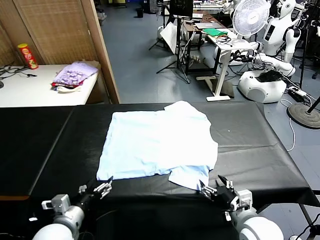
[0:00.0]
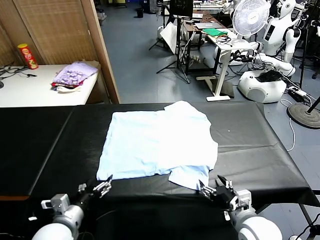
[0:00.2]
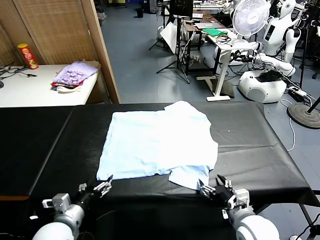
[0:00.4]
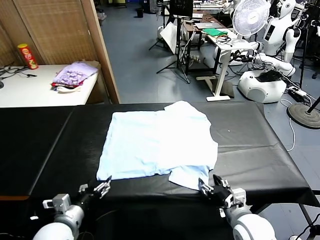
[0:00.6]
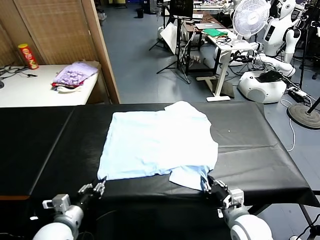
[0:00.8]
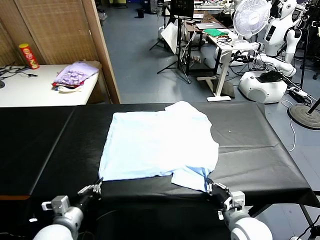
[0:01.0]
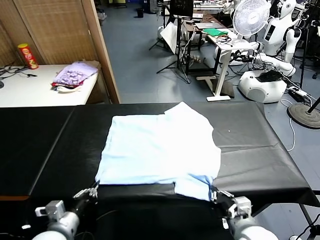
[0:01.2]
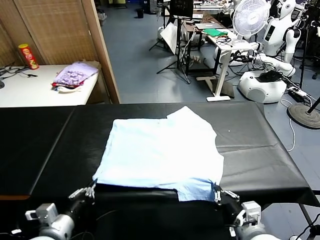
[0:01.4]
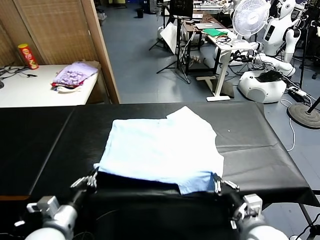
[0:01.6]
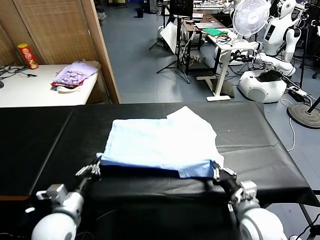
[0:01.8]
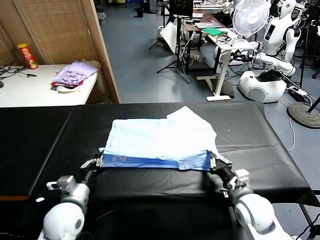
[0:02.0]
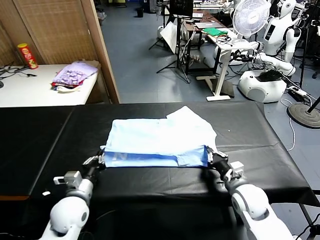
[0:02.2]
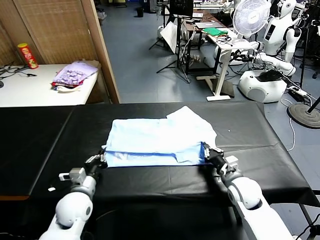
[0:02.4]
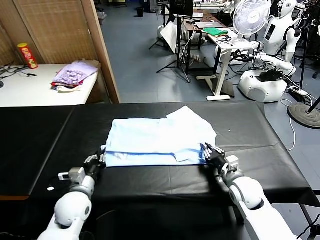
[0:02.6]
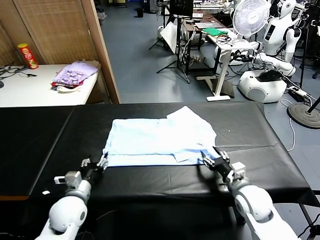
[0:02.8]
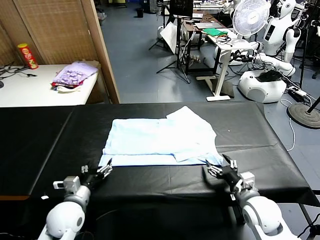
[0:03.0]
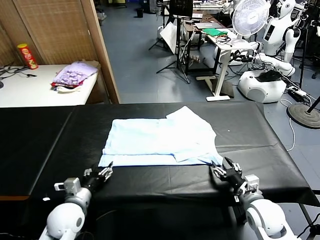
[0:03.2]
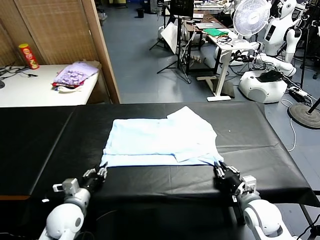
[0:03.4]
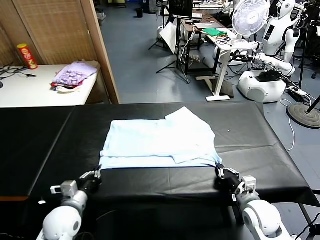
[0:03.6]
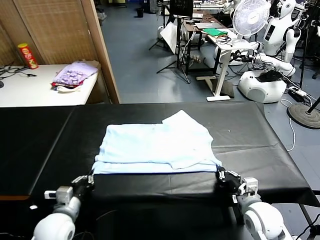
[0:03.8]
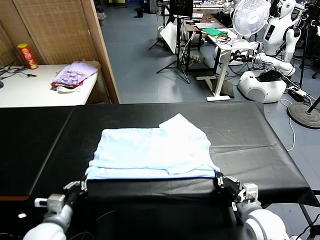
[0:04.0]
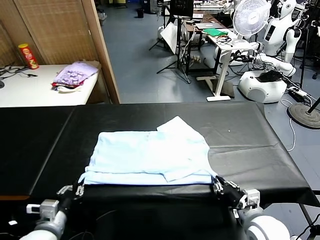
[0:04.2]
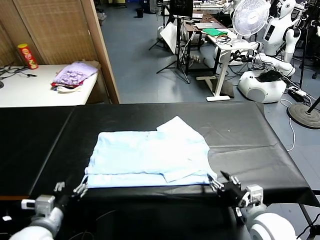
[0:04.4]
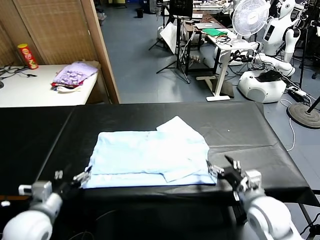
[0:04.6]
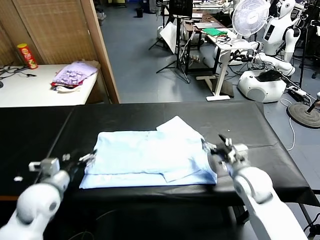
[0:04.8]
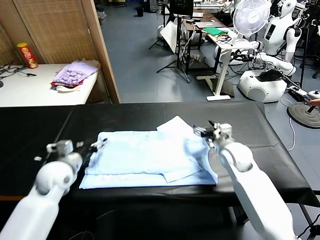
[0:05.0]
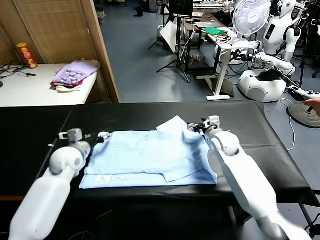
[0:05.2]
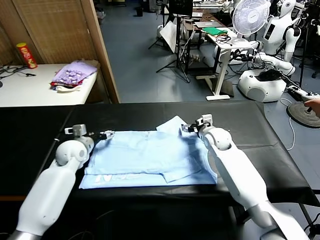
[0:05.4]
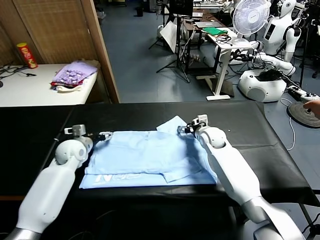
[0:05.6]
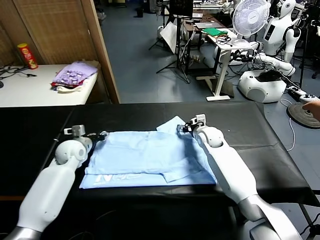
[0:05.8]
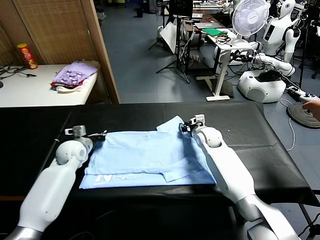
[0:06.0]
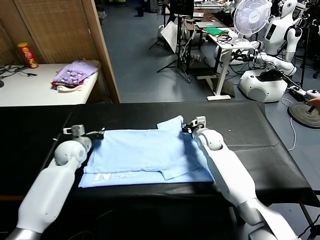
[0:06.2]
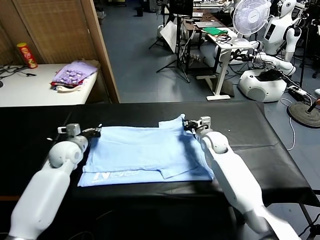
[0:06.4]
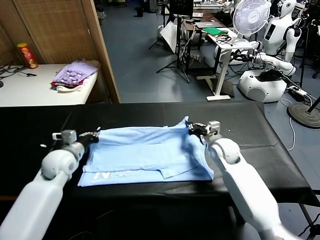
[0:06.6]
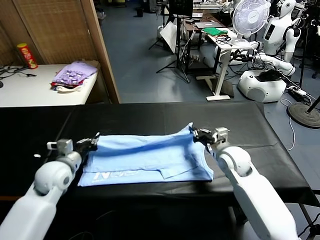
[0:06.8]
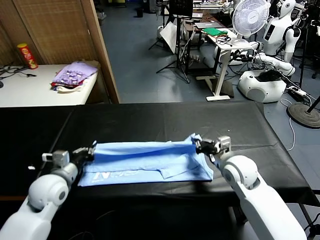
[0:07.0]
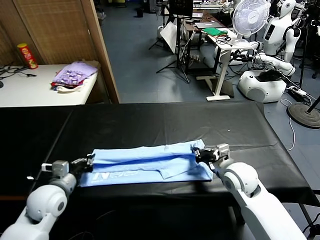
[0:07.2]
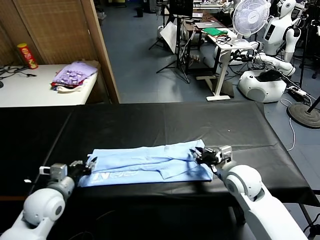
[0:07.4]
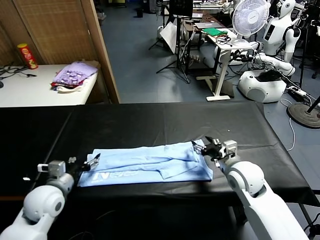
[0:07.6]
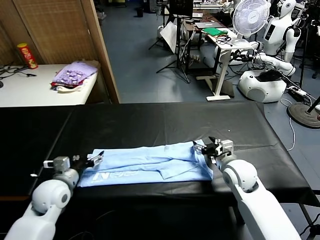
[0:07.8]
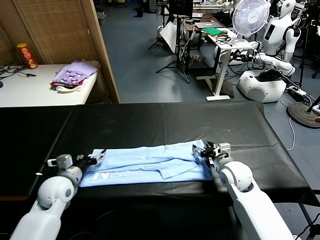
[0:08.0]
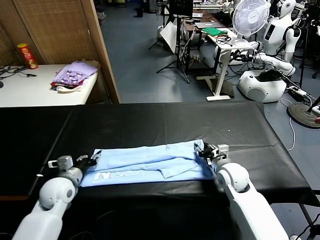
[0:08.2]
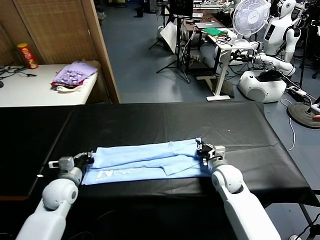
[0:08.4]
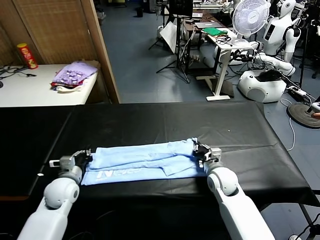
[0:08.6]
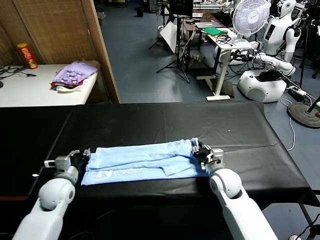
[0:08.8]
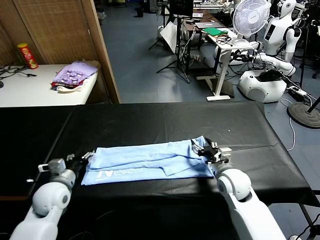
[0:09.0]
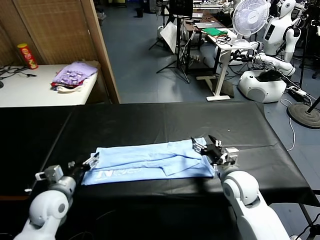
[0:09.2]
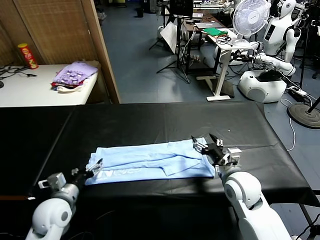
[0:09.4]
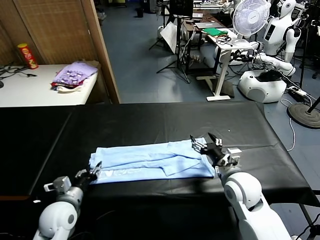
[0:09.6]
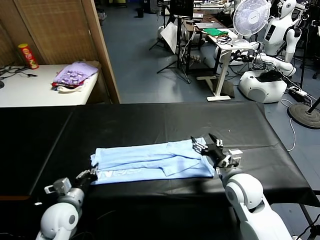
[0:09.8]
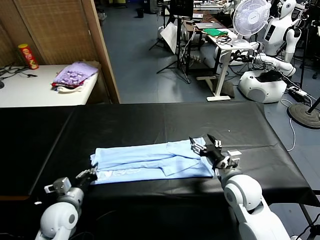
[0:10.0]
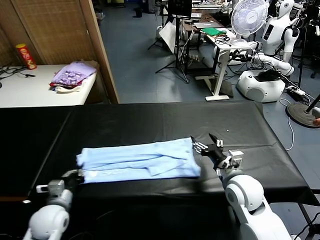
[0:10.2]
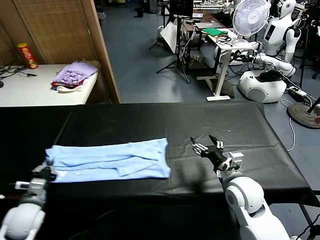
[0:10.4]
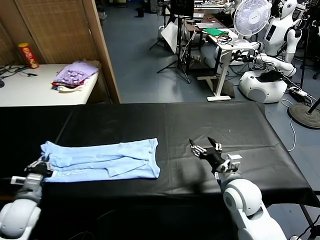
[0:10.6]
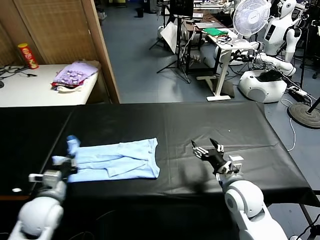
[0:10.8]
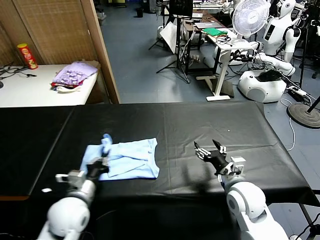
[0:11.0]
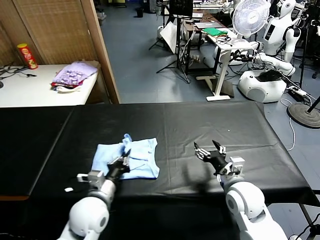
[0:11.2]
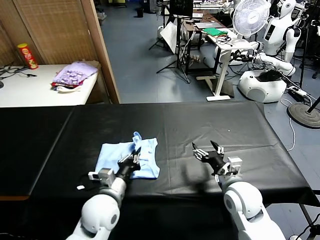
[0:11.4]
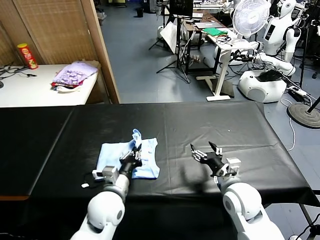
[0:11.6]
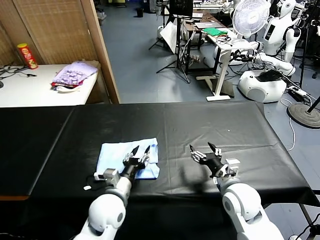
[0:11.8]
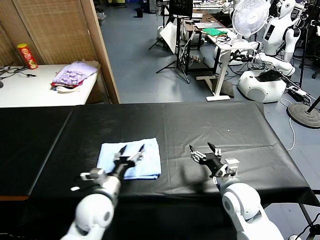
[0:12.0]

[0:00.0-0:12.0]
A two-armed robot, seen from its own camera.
Task of the whole recording: fold and organize the clothes.
Step, 0:00.0 to 0:00.8: use both grippers simultaneously to clamp the lower edge of the clothing fabric.
Step, 0:01.0 to 0:02.6: use both grippers to drag the lower edge of the fabric forward and fold it over the upper edge.
Step, 0:02.8 to 0:04.2: Drag the clothes downward with both gripper.
Step, 0:04.4 to 0:05.8: use both grippers simultaneously to clamp the upper edge of the clothing fabric.
Step, 0:06.2 to 0:07.4: use both grippers to drag the upper edge of the fabric backward and fold it over the lower edge.
Step, 0:07.6 to 0:09.8: use the left gripper to clamp the left edge of the fabric.
Step, 0:10.0 to 0:11.6: use the left gripper to drag the left edge of the fabric to the left and folds it over the right edge.
0:01.6 to 0:03.0: The right gripper moves about 10 cm forward and comes back, and opens up, while the left gripper heads downward, covering some 5 cm, and opens.
0:03.0 to 0:04.4: The left gripper heads upward and backward, covering roughly 10 cm, and closes, then reopens. Meanwhile the right gripper is displaced upward by roughly 5 cm, and opens its fingers.
0:04.4 to 0:06.0: The two grippers go roughly 30 cm forward. The left gripper closes up. The right gripper closes.
0:06.0 to 0:07.6: Both grippers travel together backward, some 15 cm. The right gripper opens its fingers; the left gripper opens up.
0:07.6 to 0:09.0: The right gripper closes, then opens again; the left gripper closes, then reopens.
0:09.0 to 0:10.4: The left gripper moves to the left, about 10 cm, and closes.
0:10.4 to 0:12.0: The left gripper is displaced to the right by roughly 20 cm, and opens.

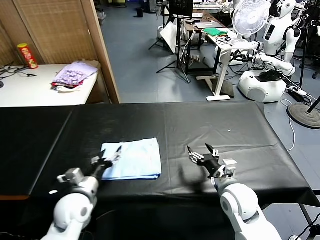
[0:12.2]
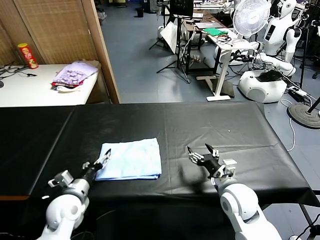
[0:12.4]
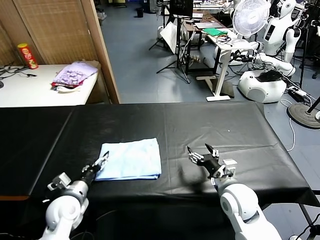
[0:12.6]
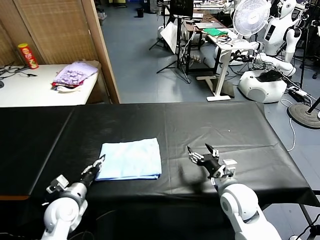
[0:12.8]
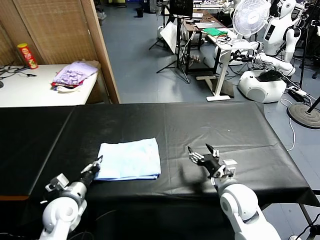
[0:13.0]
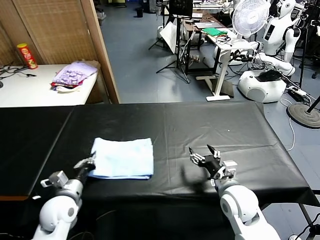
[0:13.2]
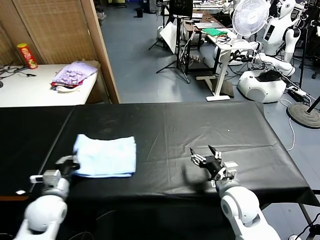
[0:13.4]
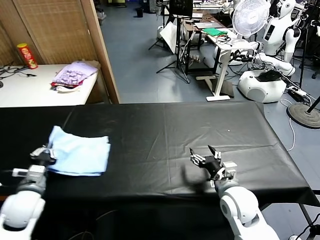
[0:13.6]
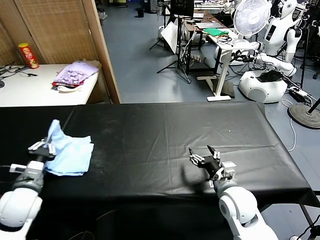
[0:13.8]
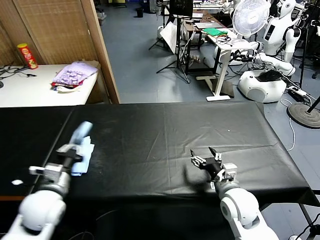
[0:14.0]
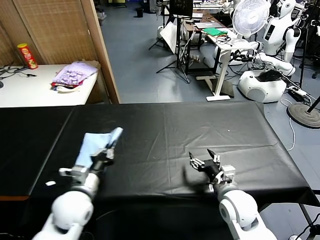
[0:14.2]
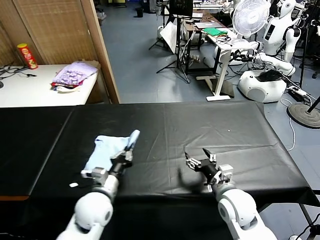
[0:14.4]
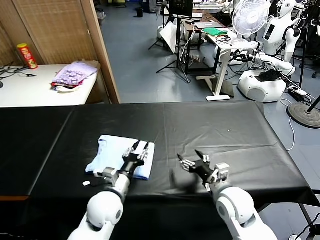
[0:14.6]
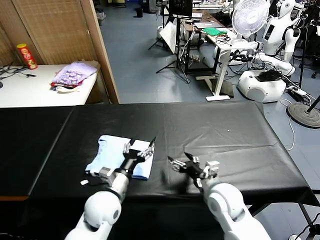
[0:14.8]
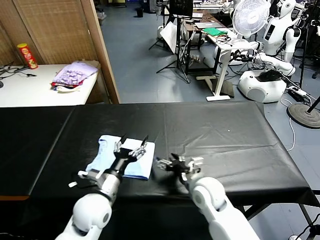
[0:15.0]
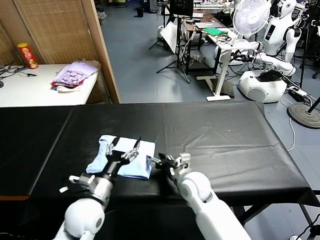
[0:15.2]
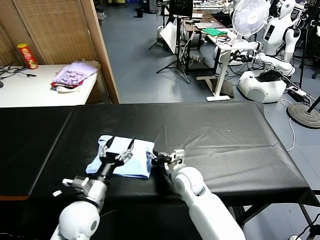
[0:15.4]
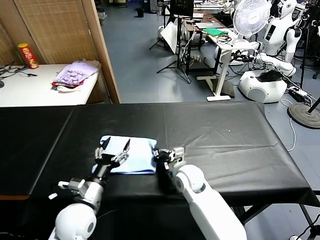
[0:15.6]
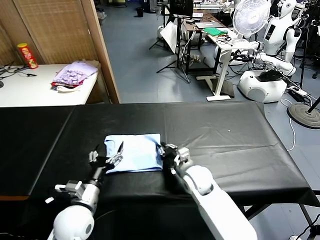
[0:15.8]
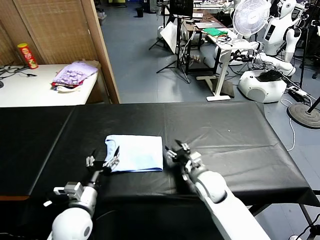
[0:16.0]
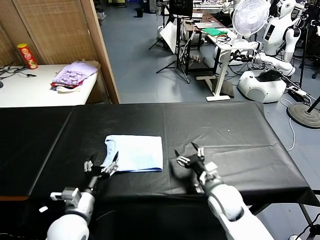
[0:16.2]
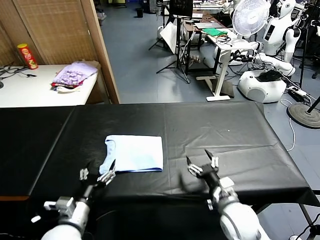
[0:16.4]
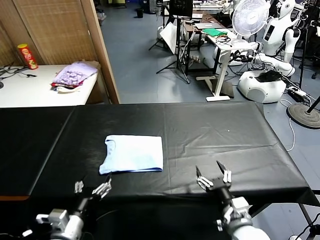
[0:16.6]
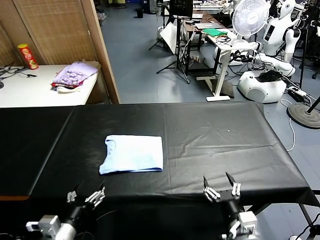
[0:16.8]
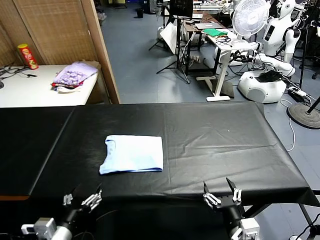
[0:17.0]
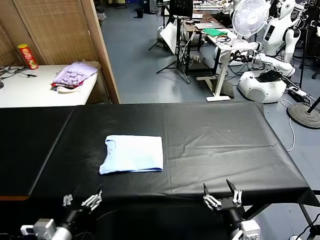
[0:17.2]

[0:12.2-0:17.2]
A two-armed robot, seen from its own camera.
Task of the whole recording: fold and organize the clothes.
Step, 0:12.2 to 0:14.4: Flip the folded clothes over with left gripper.
Step, 0:14.6 to 0:15.8: Drag the clothes to the center of the table.
0:12.2 to 0:13.8: The left gripper is displaced to the left and upward by some 15 cm, and closes its fingers.
0:13.8 to 0:15.6: The left gripper travels to the right by some 15 cm, and opens. The right gripper is displaced to the left and forward by roughly 15 cm, and closes up.
0:15.6 to 0:17.2: The left gripper is displaced backward by some 10 cm, while the right gripper is displaced backward and to the right by approximately 30 cm, and opens its fingers.
